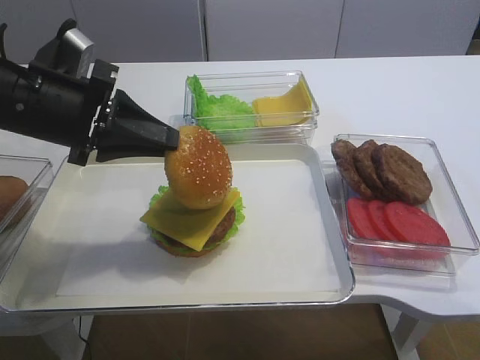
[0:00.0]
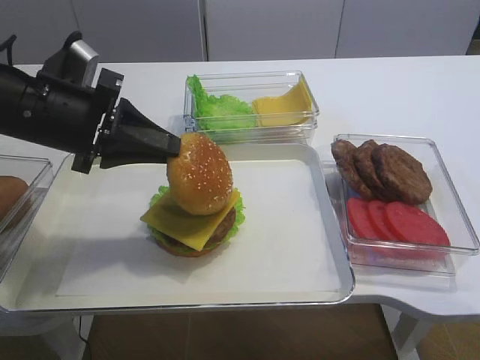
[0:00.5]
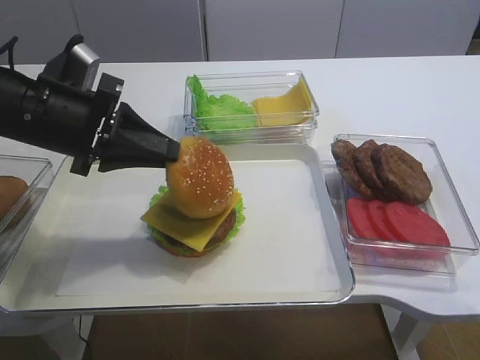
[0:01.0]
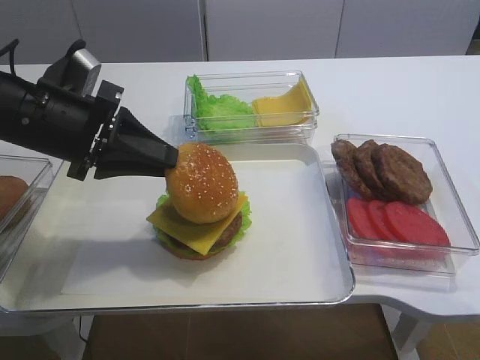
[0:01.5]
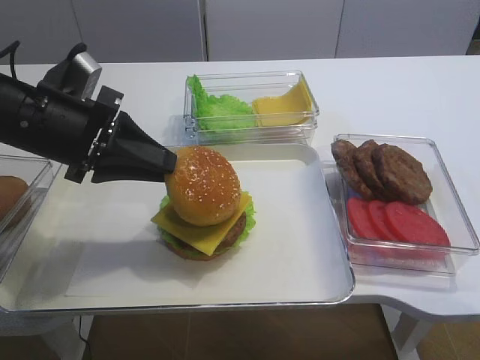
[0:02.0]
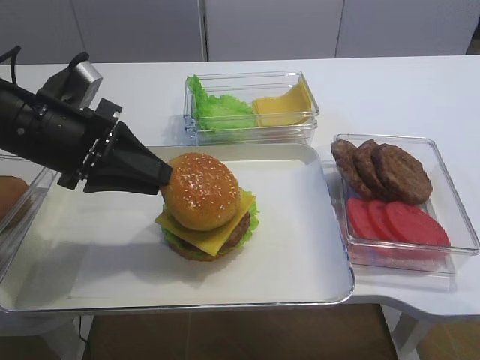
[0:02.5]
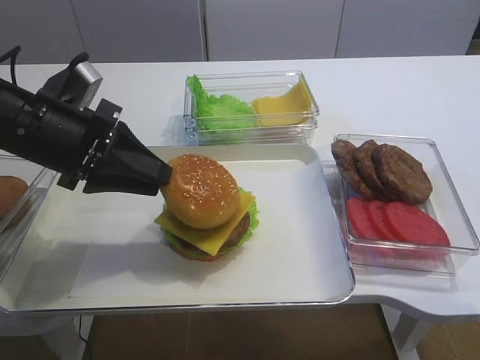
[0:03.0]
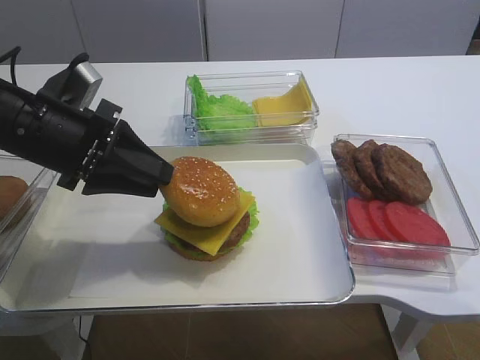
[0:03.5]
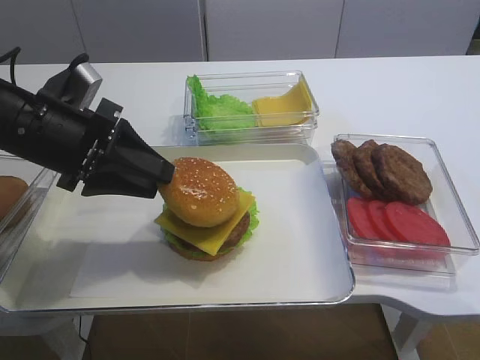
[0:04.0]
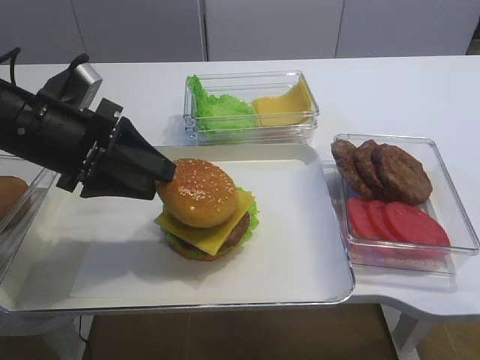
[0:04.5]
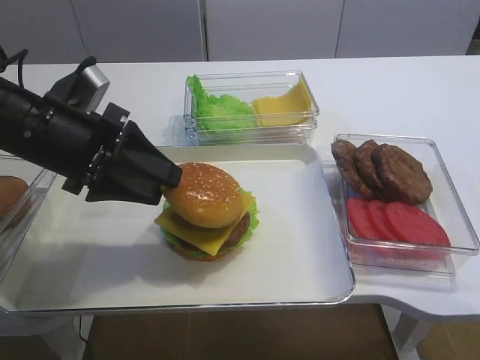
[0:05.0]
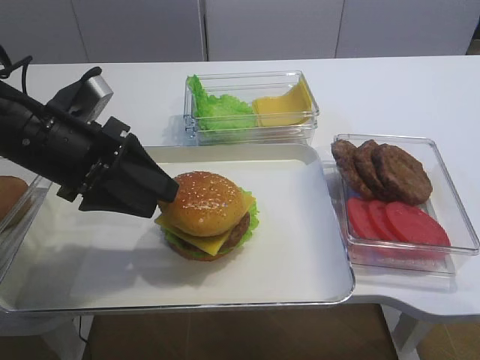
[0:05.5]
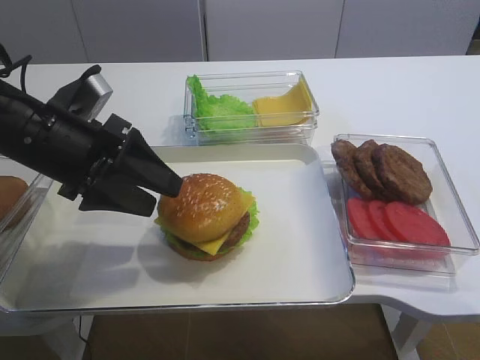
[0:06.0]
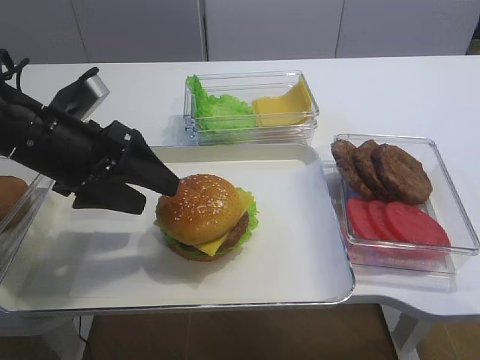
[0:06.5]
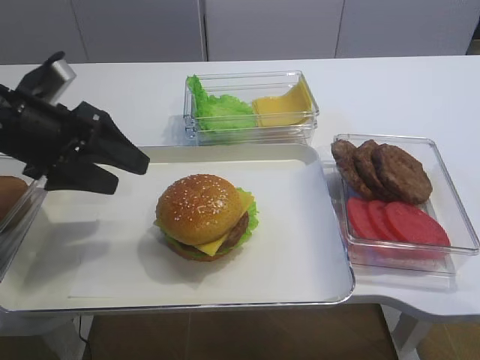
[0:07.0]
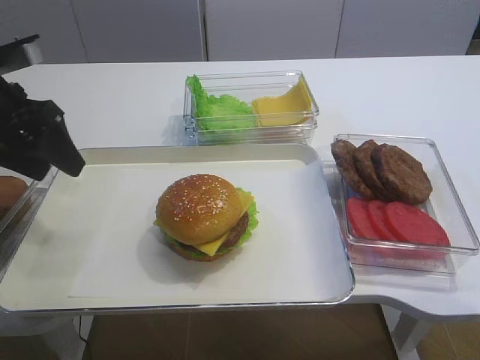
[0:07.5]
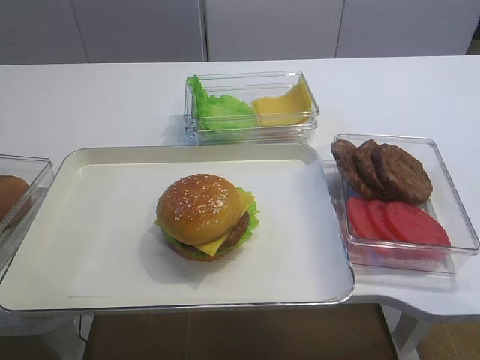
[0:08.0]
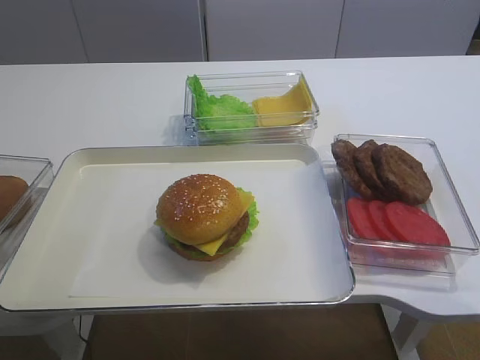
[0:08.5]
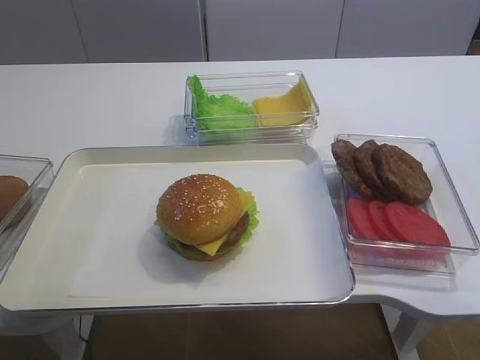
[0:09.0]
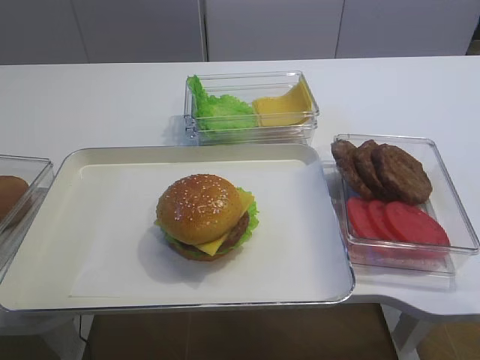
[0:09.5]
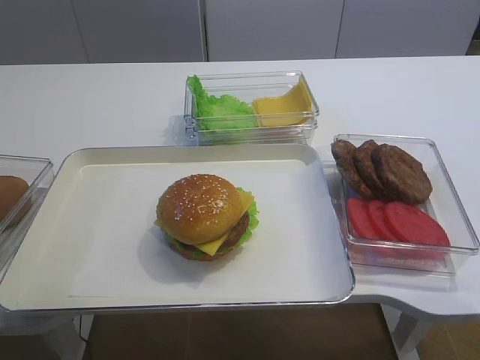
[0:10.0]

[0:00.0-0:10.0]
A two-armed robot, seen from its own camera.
Step, 0:00.0 to 0:06.5: Place the hamburger lid on the cheese slice with the left gripper.
0:00.0 to 0:02.0: The grippers stay close to where they were, moving slightly.
0:02.0 to 0:04.0: Both grippers stay put.
0:04.0 to 0:06.0: The grippers stay close to where they were, moving slightly.
0:06.0 to 0:08.0: The left gripper shifts about 15 cm to the left and upward.

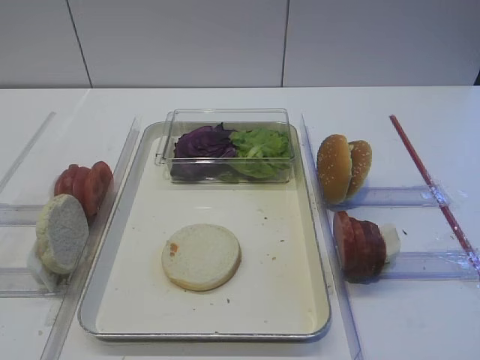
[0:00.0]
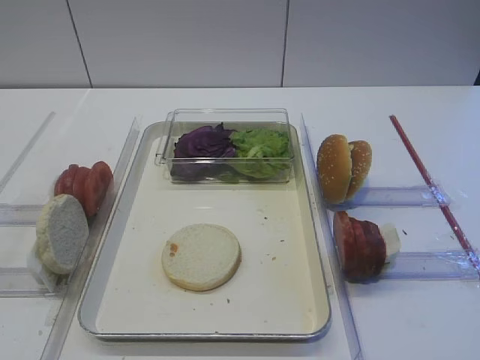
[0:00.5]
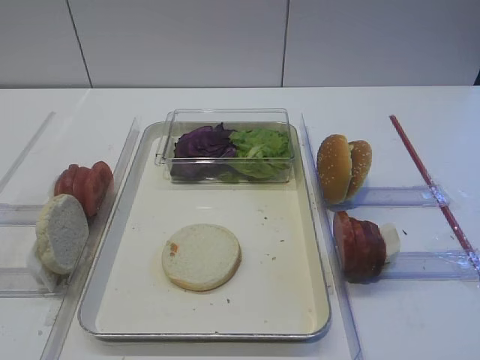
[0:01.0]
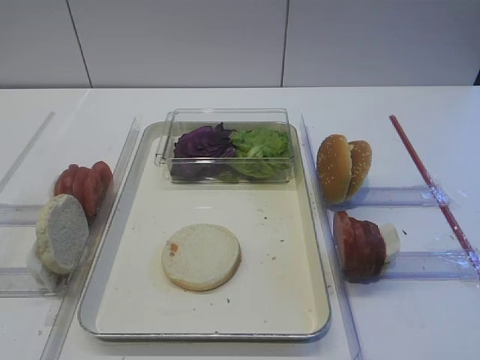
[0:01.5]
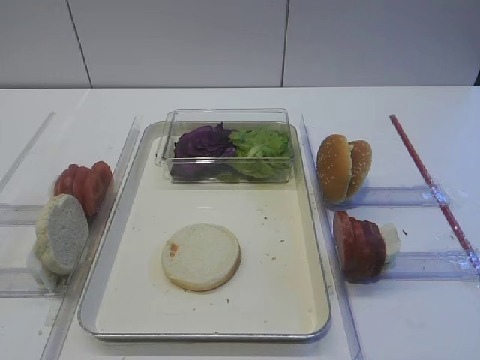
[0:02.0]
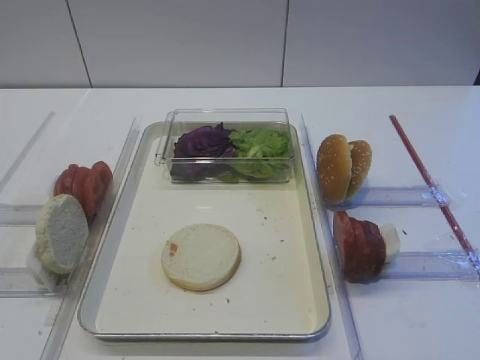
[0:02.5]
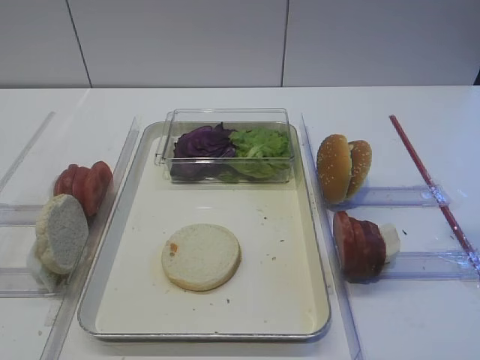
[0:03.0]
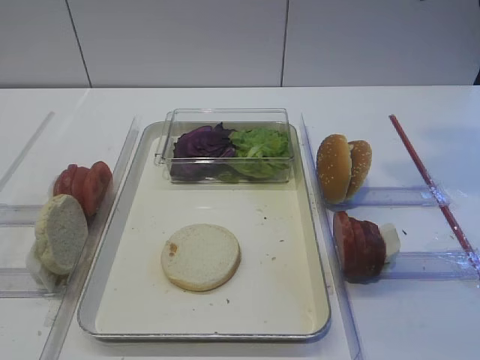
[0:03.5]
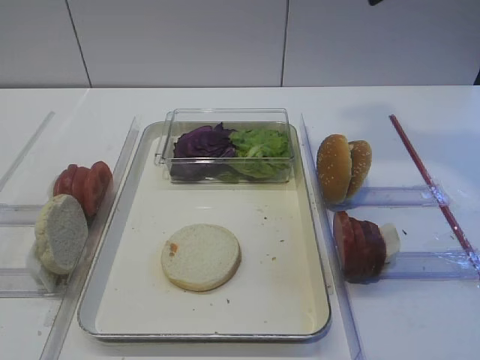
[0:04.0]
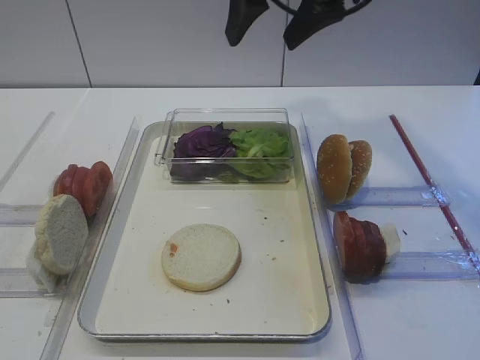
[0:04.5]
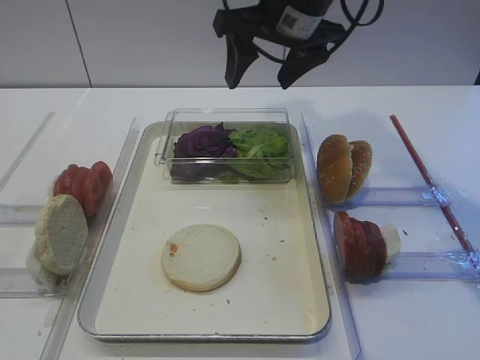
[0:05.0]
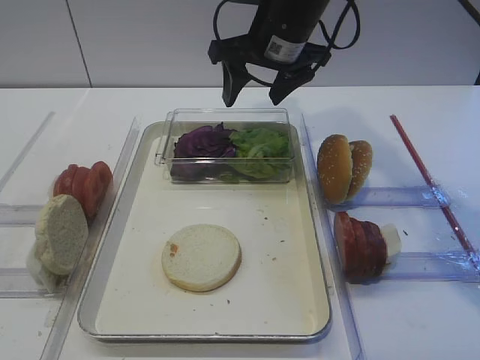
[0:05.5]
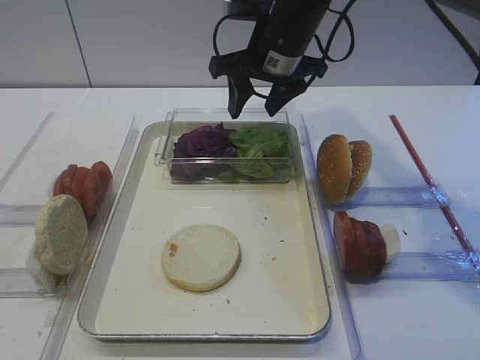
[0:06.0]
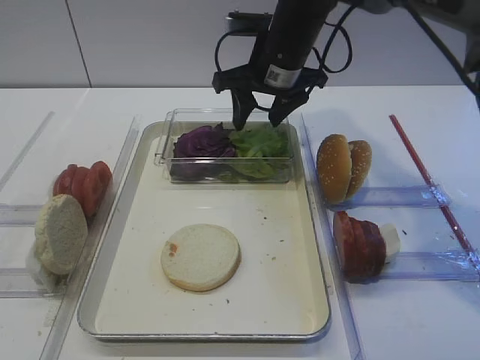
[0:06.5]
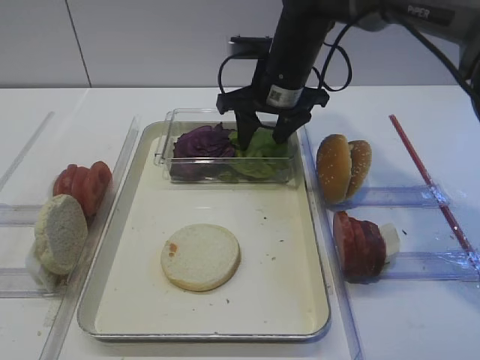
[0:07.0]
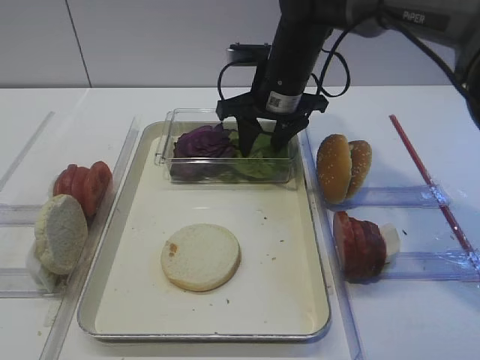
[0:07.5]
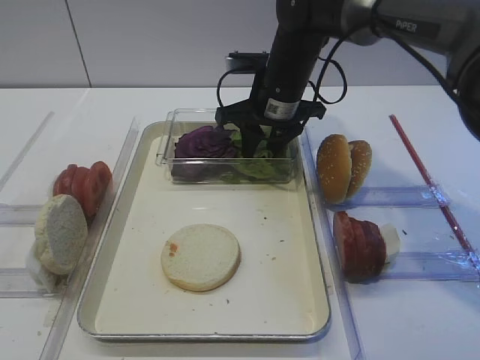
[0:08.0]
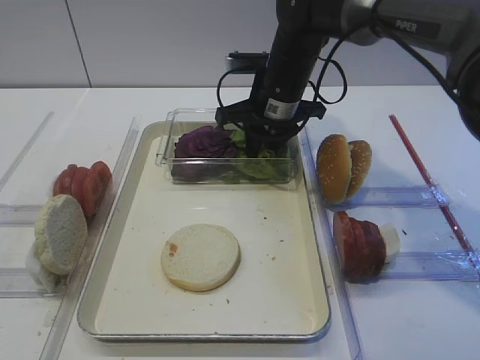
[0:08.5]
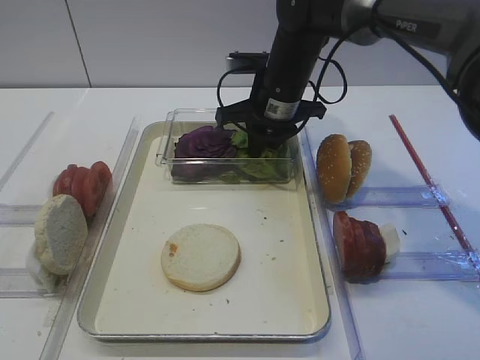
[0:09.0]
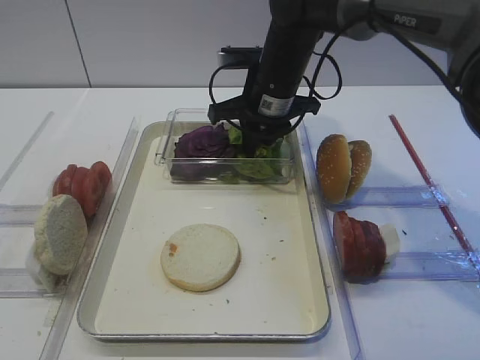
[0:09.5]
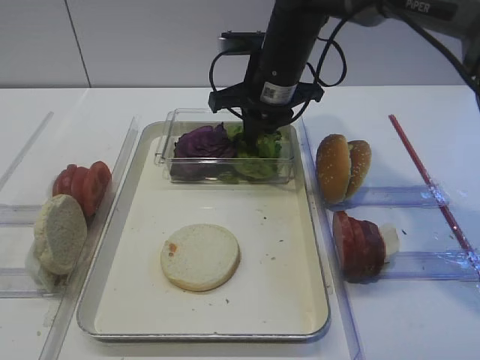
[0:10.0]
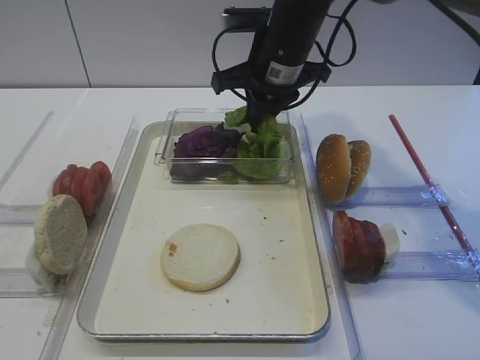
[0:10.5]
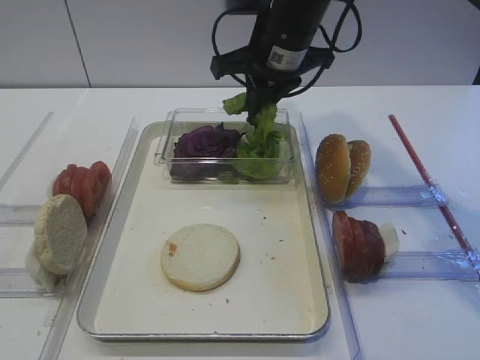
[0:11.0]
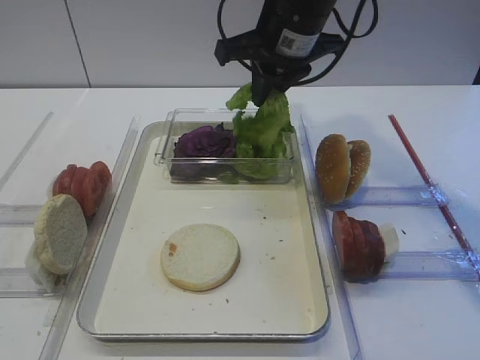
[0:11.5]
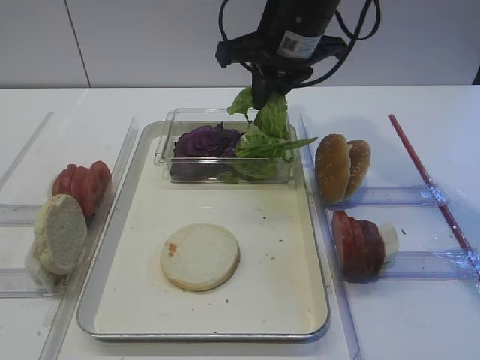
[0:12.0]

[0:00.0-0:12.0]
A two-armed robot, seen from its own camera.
Step, 0:00.0 to 0:10.5: Pick up the lettuce leaf with the right gripper.
0:04.0 to 0:06.0: The right gripper goes about 20 cm downward, forward and to the left.
0:06.0 to 0:08.0: The right gripper heads downward, covering about 5 cm.
0:08.0 to 0:10.0: The right gripper closes up.
0:10.0 to 0:12.0: The right gripper heads upward, covering some 5 cm.

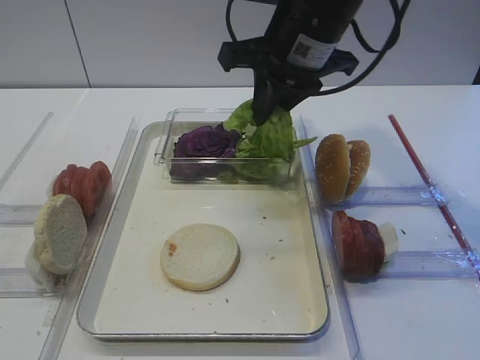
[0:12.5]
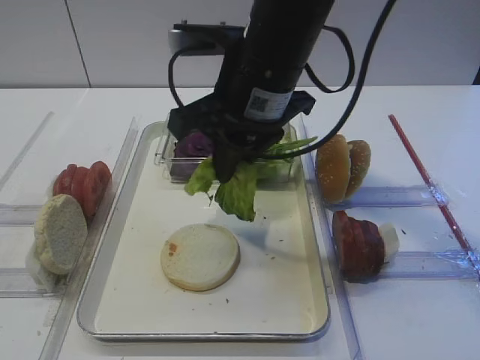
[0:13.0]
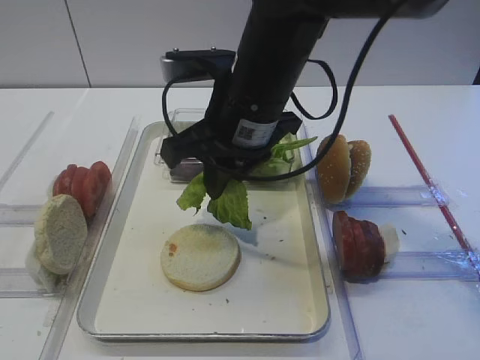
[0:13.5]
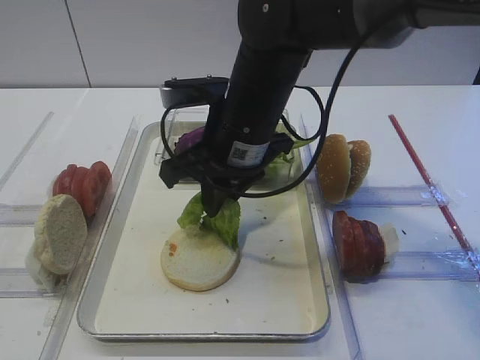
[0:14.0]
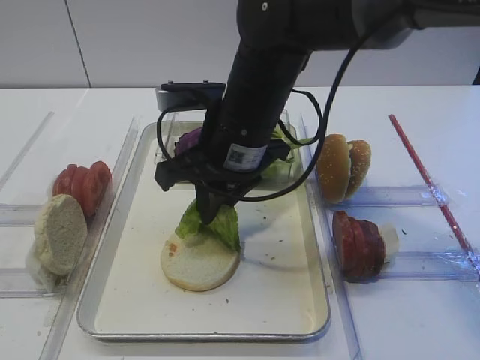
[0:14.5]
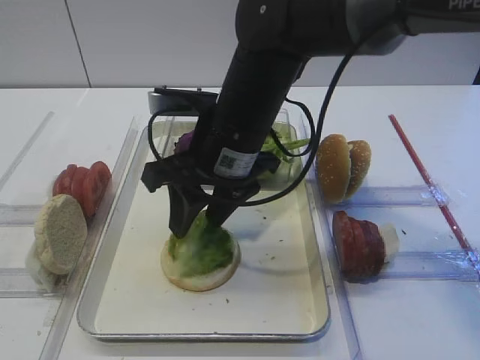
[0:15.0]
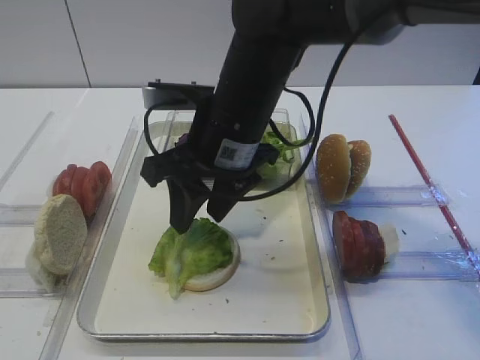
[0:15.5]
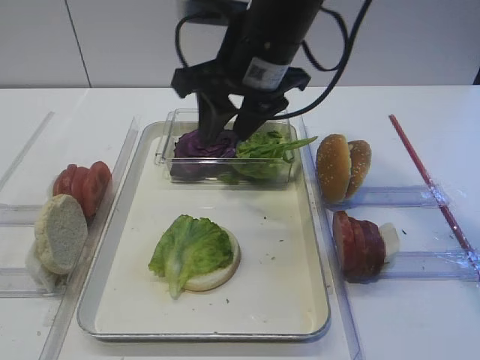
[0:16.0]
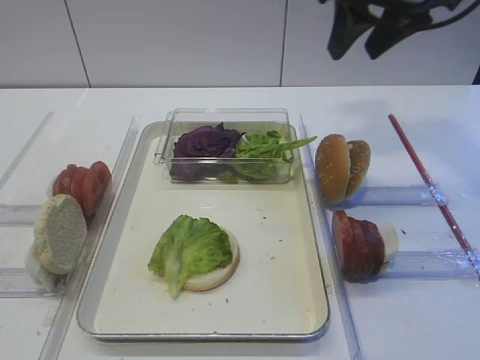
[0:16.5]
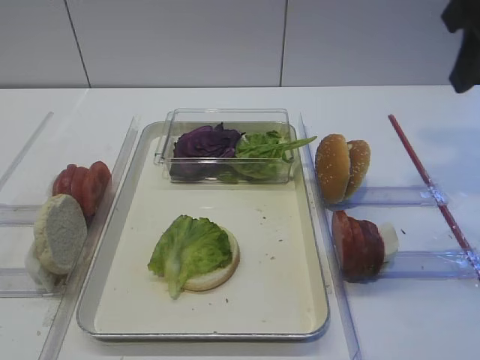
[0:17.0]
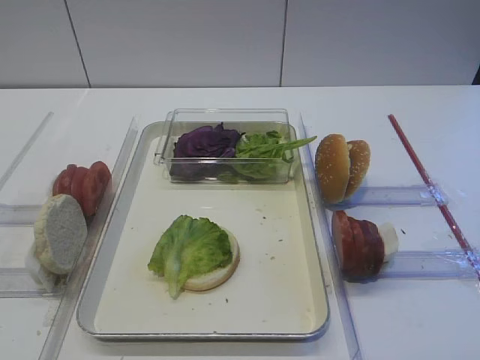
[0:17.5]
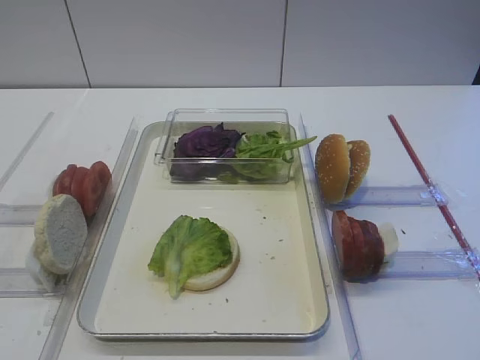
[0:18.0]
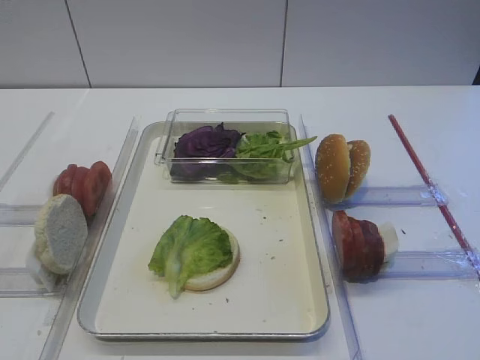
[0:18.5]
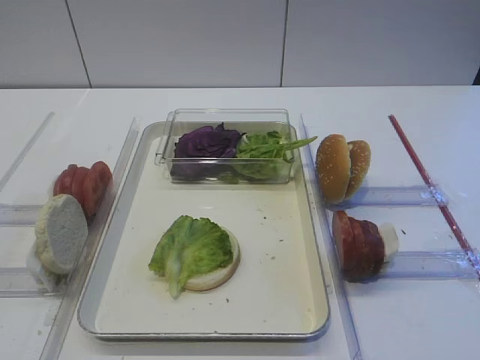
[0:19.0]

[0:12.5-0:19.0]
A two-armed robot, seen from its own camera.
Step, 0:12.5 to 0:15.0: Place the lettuce leaf on the bread slice with the right gripper.
0:12.5 to 0:14.5: The right gripper heads downward and to the left, covering roughly 10 cm.
0:14.5 to 0:17.0: The right gripper is displaced to the right and upward by roughly 25 cm, and opens.
0:17.0 to 0:19.0: The right gripper is displaced backward by some 30 cm.
